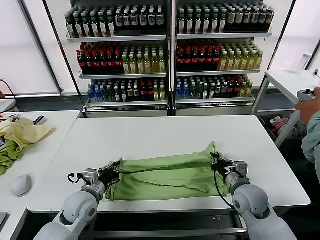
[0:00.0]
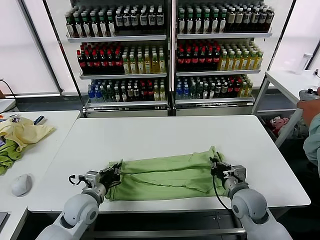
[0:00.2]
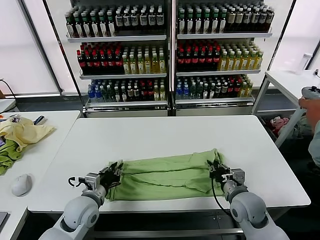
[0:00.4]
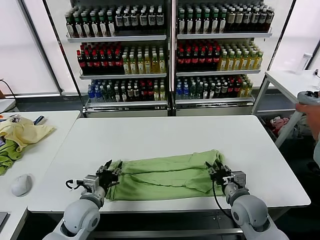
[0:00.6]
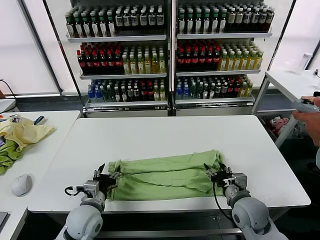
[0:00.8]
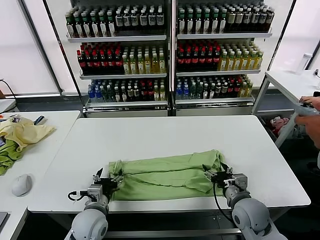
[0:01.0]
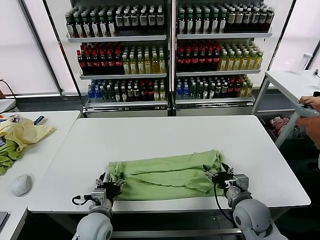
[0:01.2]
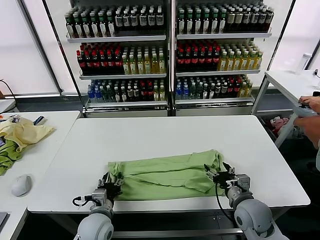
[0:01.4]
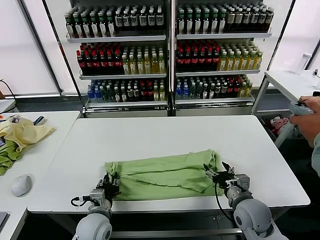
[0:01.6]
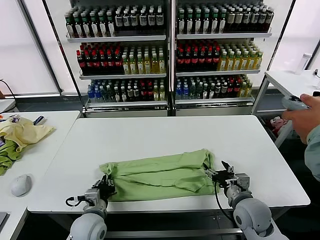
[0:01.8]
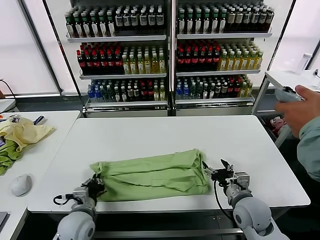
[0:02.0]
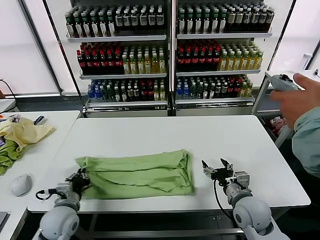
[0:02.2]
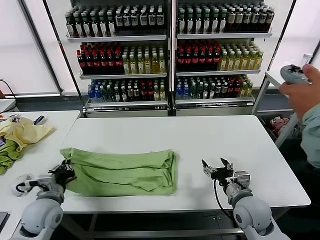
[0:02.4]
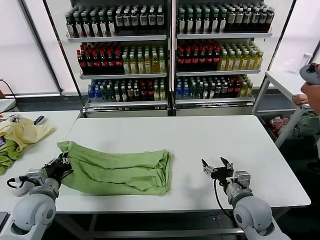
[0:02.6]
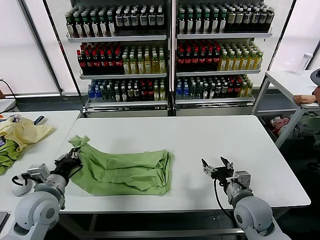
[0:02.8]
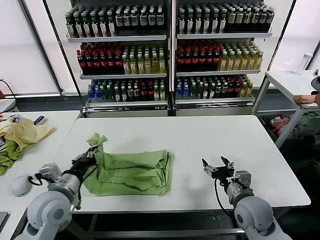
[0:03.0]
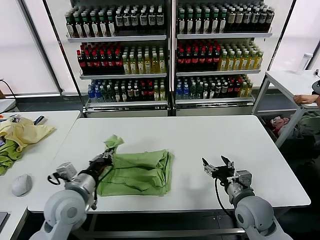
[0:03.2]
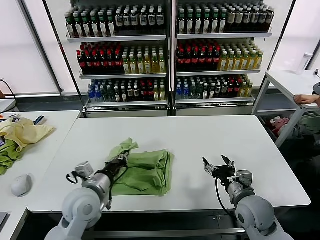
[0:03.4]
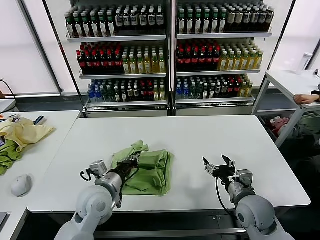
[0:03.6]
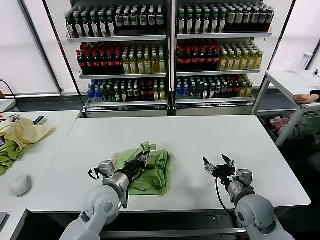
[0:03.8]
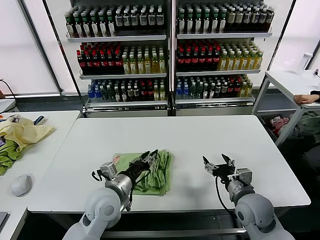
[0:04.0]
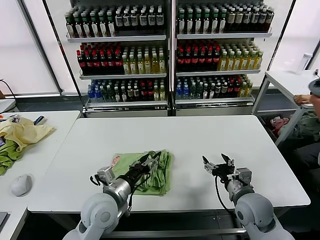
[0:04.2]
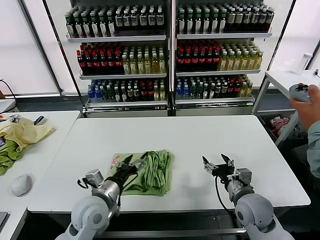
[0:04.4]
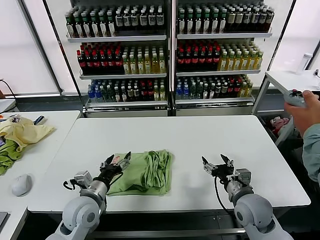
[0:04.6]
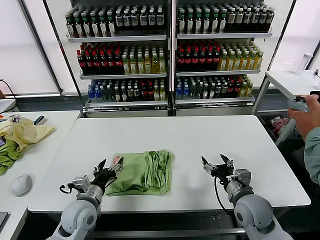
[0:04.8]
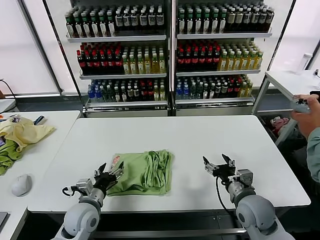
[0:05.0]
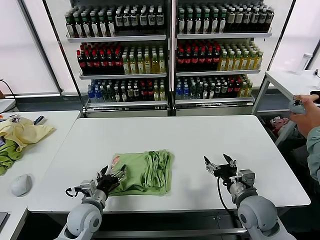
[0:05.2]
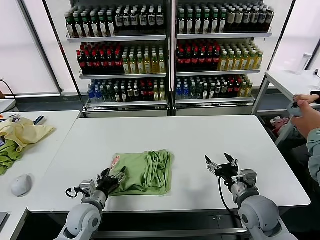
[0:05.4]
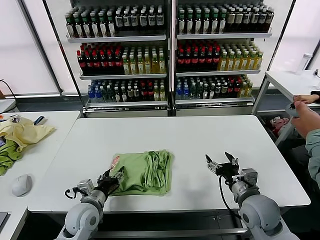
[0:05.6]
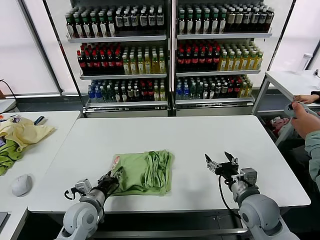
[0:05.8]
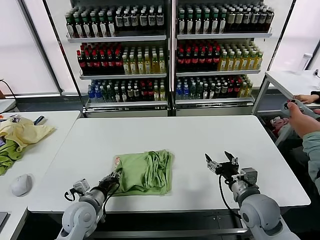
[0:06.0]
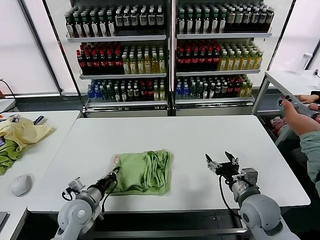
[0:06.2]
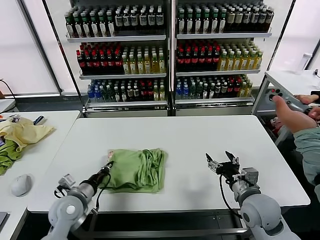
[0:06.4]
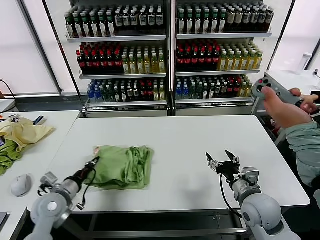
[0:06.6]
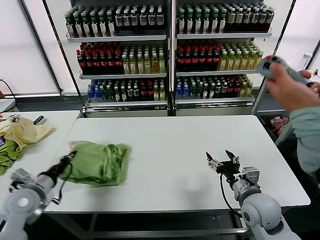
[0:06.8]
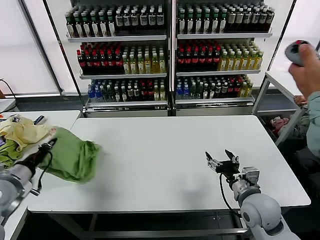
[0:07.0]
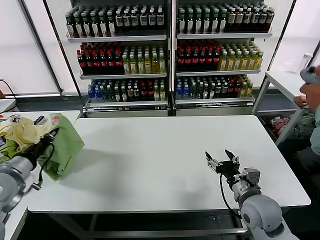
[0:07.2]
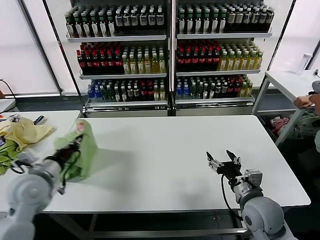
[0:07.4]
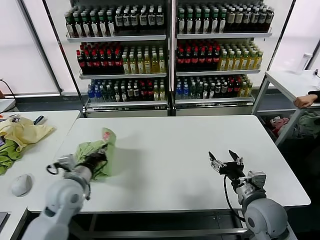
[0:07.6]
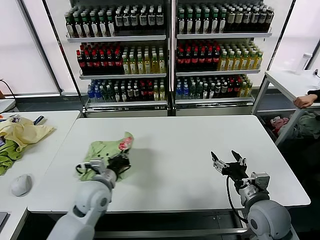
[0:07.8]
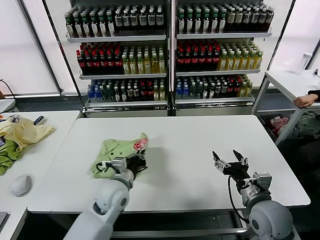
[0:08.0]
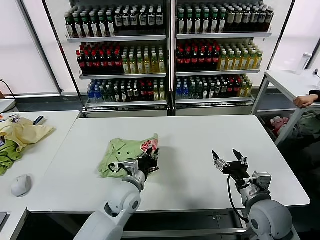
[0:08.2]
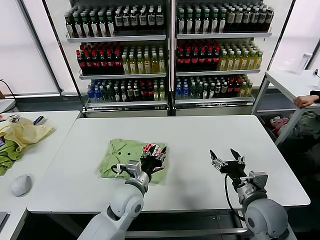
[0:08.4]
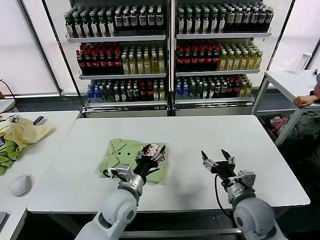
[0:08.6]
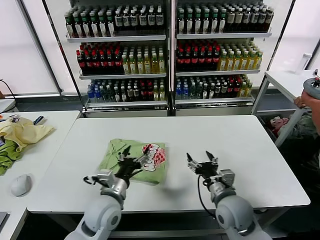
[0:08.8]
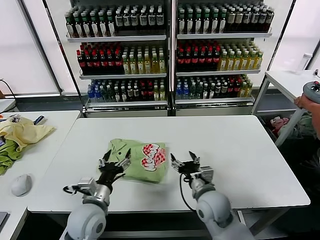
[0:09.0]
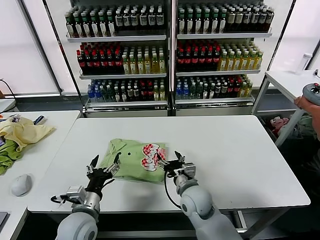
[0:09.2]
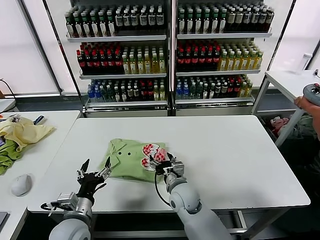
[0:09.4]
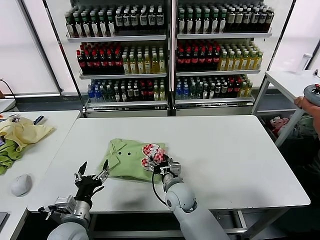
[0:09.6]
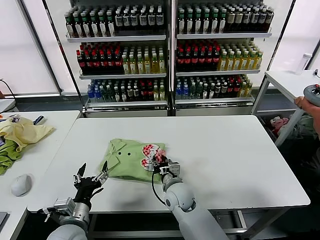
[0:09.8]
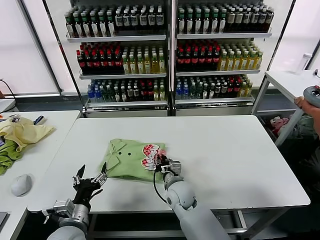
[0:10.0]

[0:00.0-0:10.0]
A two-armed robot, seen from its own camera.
Task of the whole recording: fold and organize the clothes.
Step, 0.8 to 1.8 s: use the left gripper to clamp the left edge of the fabric.
Step, 2.0 to 4.0 s: use the left gripper to drag the left edge of the fabric to the left and folds it over the right edge.
Step, 4.4 to 8.4 s: Flip the folded clothes over with left gripper.
0.0 to 1.4 s: The left gripper goes approximately 10 cm backward and to the right, and opens; the right gripper opens.
1.4 to 2.8 s: The left gripper is displaced to the left and upward by some 20 cm, and closes.
2.8 to 4.2 s: The left gripper shifts about 15 cm to the right, and opens up.
4.2 to 5.8 s: The left gripper heads to the left and downward, covering some 10 cm.
5.8 to 7.2 s: The left gripper shifts about 25 cm to the left and upward, and closes.
7.2 to 8.6 s: The left gripper heads to the right, covering some 30 cm, and opens its fingers.
8.6 to 10.0 s: The right gripper travels to the left, forward and downward by roughly 25 cm, and closes. Meanwhile the left gripper goes some 15 cm to the left and backward.

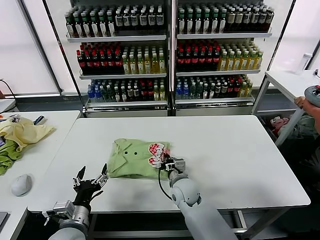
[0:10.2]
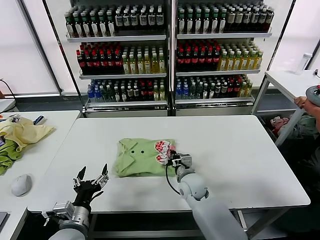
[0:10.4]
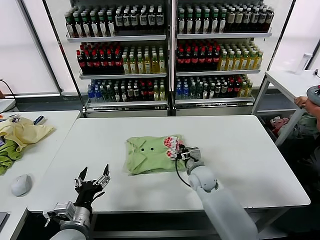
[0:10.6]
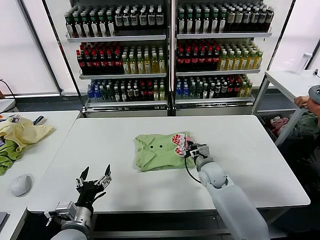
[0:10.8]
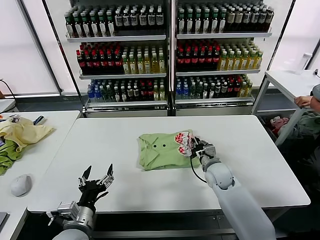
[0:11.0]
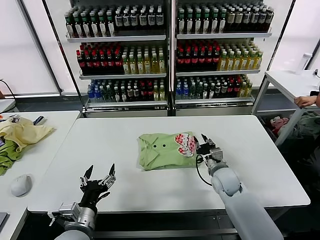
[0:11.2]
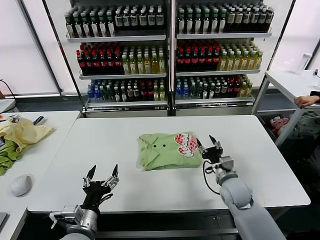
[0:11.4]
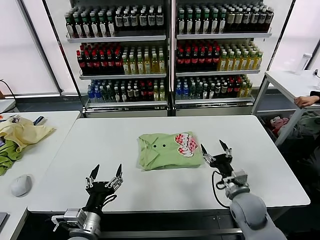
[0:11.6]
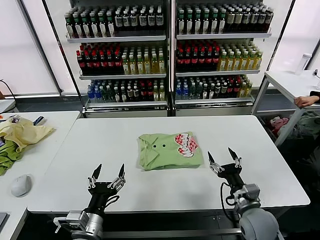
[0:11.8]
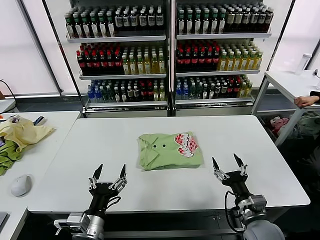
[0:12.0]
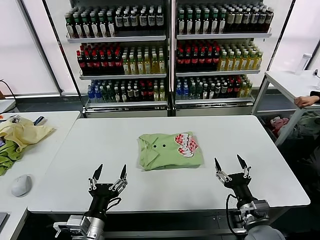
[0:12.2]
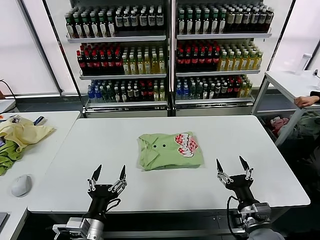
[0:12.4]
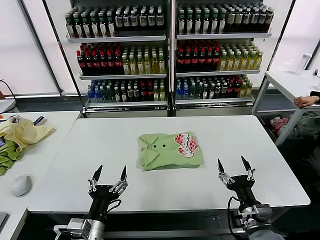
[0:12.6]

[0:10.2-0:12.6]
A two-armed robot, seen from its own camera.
Task of the whole recording: fold and organize the clothes.
10.2 to 11.4 s: The right gripper is displaced to the right by about 15 cm, and opens its fingers.
11.4 to 12.6 s: The left gripper shifts by about 5 cm. The right gripper moves backward, roughly 20 cm, and opens its fingers.

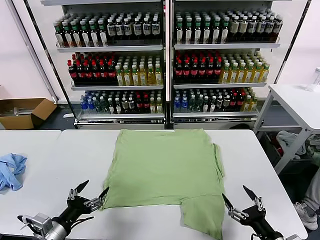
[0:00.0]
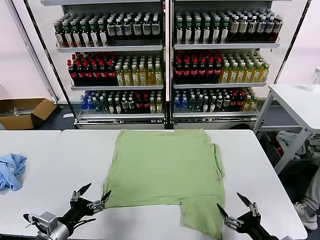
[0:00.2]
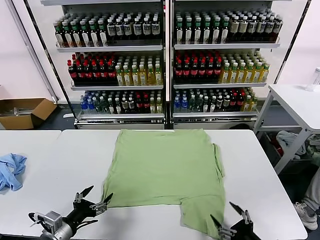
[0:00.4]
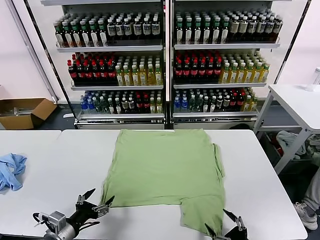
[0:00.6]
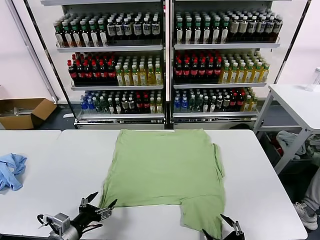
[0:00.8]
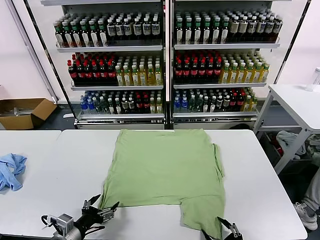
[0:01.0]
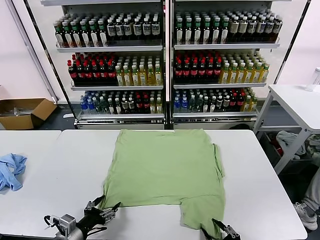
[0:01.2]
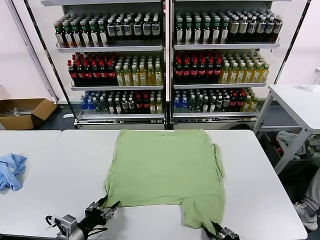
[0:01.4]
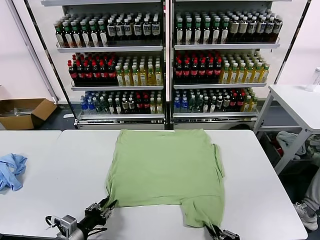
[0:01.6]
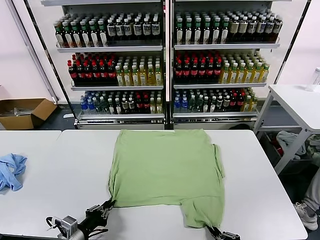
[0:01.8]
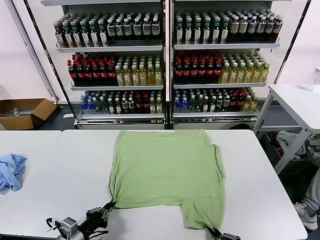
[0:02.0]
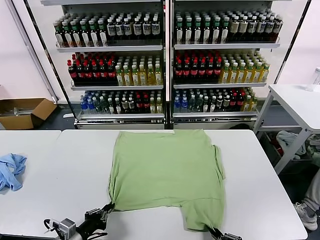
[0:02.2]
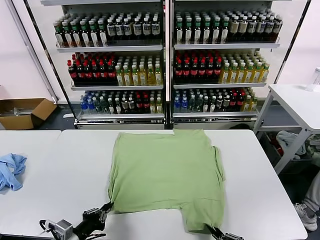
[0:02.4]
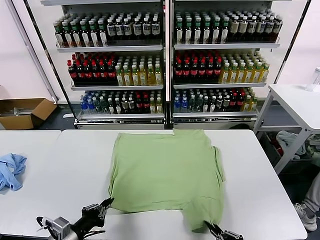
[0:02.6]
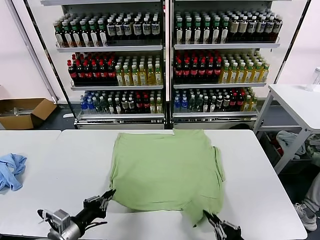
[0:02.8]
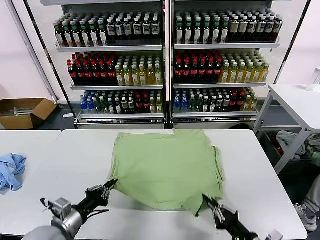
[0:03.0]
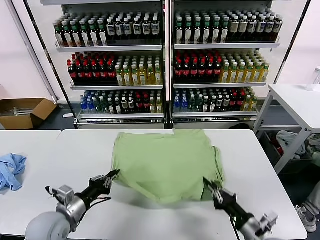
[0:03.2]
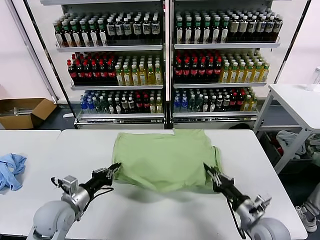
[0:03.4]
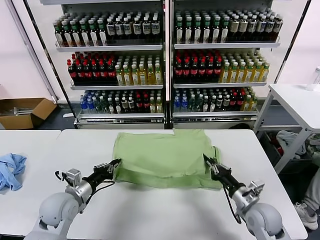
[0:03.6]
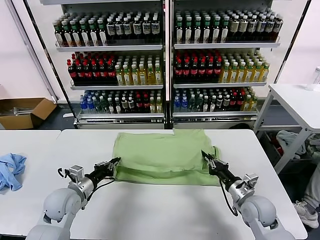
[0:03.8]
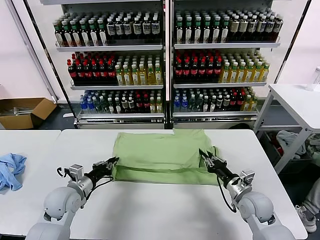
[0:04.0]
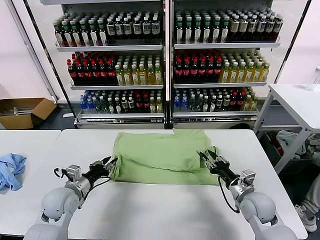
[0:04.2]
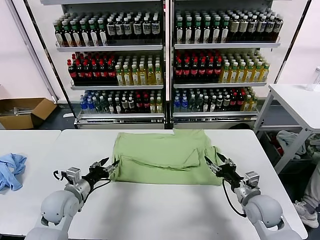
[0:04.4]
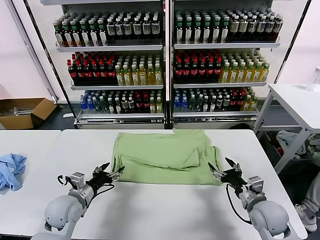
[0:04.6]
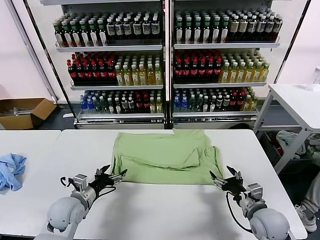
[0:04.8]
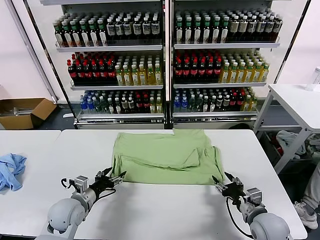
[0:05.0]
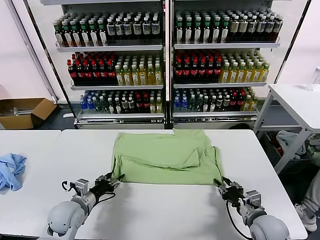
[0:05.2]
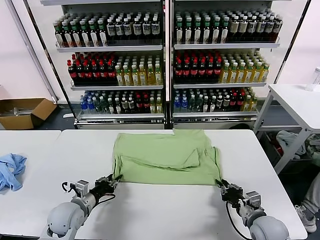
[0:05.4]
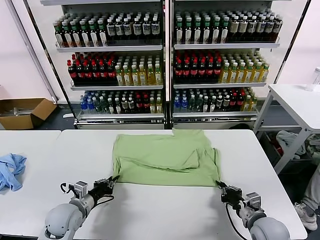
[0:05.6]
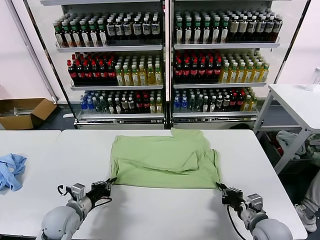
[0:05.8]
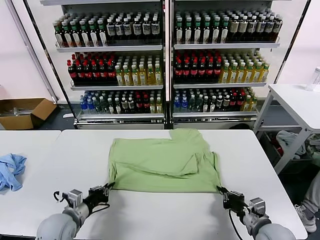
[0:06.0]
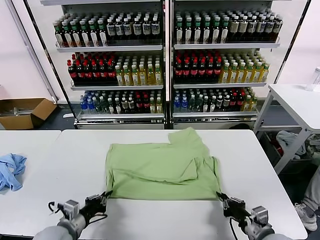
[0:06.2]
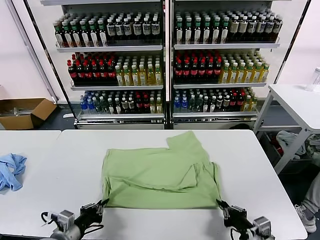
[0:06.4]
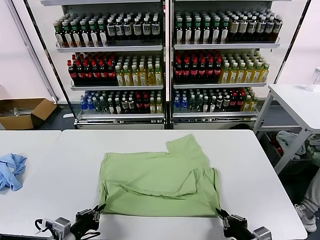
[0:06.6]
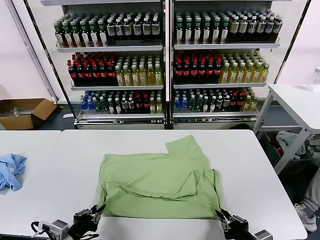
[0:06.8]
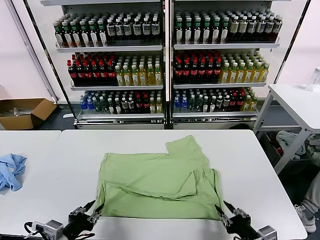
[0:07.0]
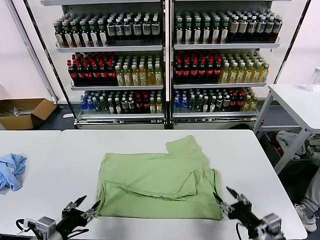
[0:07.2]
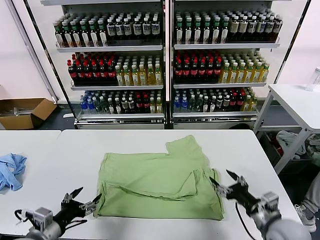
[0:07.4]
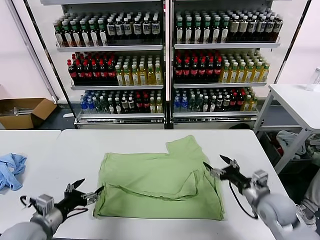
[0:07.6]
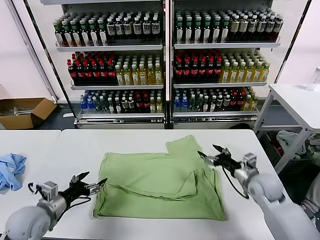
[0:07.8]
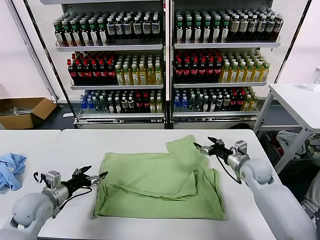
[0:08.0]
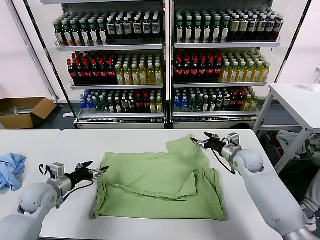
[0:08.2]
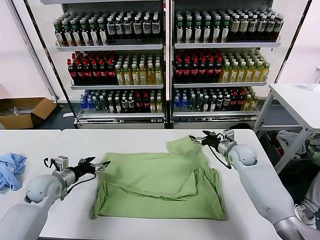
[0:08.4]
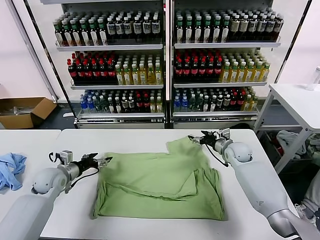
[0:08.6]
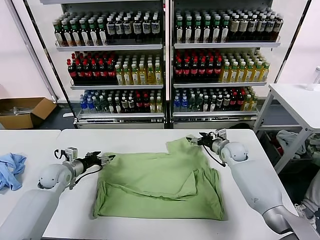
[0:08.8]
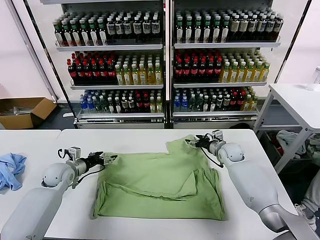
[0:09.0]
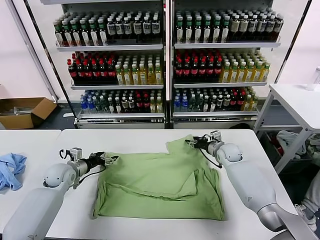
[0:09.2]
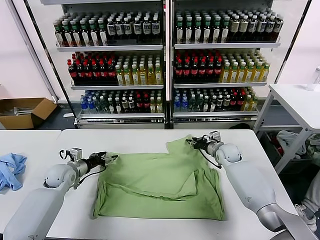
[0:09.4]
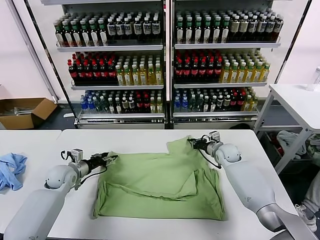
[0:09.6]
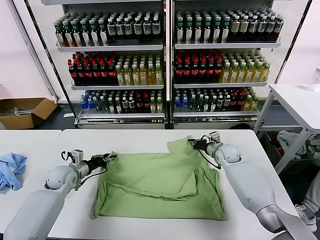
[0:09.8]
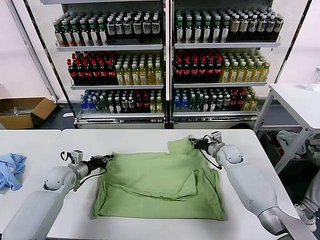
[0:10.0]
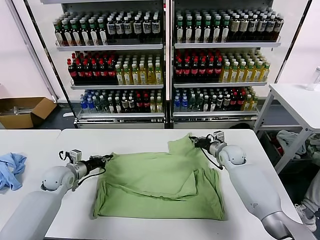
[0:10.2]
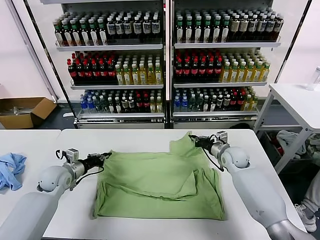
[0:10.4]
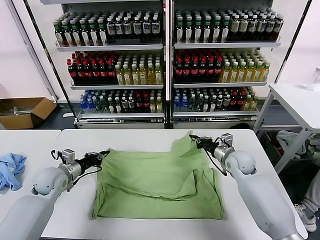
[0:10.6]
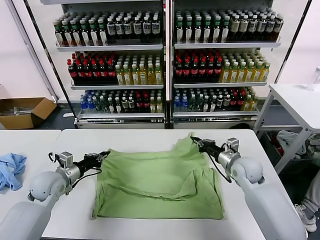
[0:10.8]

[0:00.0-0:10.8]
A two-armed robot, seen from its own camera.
Task of the whole recording: fold and organize the clothes.
Step, 0.0 to 1.8 s: use both grippers simultaneously to clamp the lower edge of the clothing fabric.
Step, 2.2 to 4.2 s: use both grippers to drag the lower edge of the fabric forward and fold it over the upper edge.
Step, 4.4 to 6.8 s: Drag the clothes downward with both gripper.
Step, 7.2 to 10.0 s: use both grippers simultaneously to clamp the upper edge of the clothing fabric.
1.6 to 3.0 s: The right gripper travels forward by approximately 10 cm. The left gripper travels upward by some 5 cm, and closes up.
3.0 to 4.6 s: The grippers both shift forward by some 10 cm. The left gripper opens its fingers; the right gripper opens up.
4.6 to 6.2 s: Both grippers move backward, about 10 cm. The right gripper closes its fingers. Meanwhile the left gripper closes.
6.2 to 7.8 s: The left gripper goes about 5 cm to the left, goes backward and returns, about 10 cm each way, and opens up. The right gripper is displaced forward by approximately 25 cm, and opens its fingers.
7.8 to 9.2 s: The two grippers go approximately 15 cm forward. The right gripper closes.
9.2 to 10.8 s: The left gripper moves backward, roughly 5 cm, and closes up. The right gripper moves backward and upward, some 15 cm, and closes.
